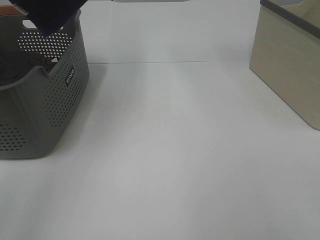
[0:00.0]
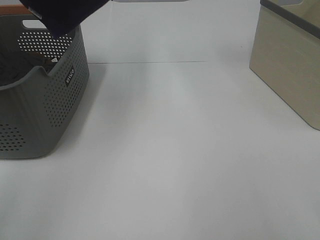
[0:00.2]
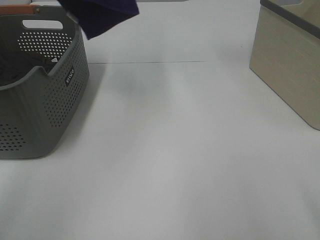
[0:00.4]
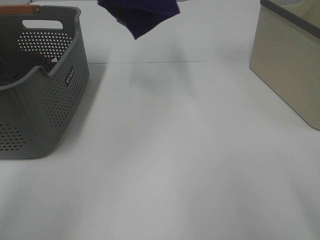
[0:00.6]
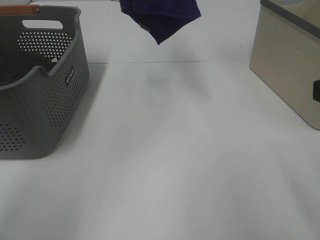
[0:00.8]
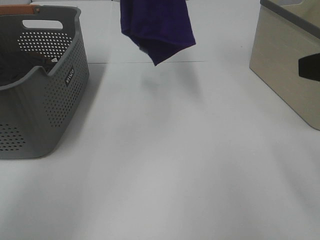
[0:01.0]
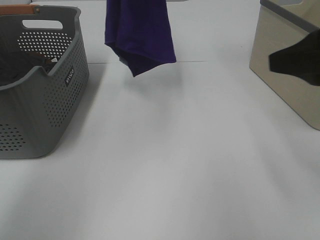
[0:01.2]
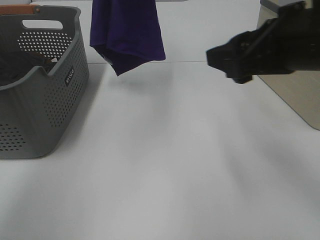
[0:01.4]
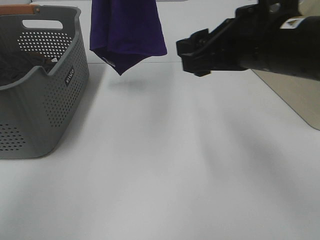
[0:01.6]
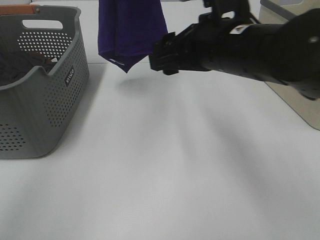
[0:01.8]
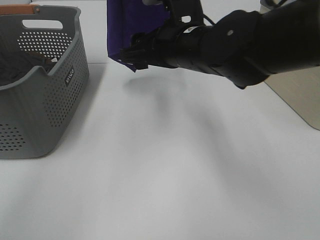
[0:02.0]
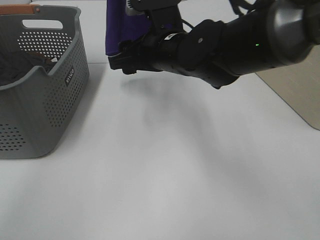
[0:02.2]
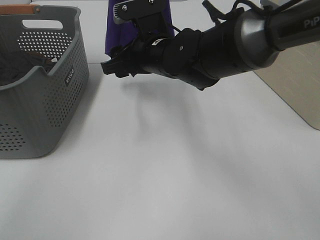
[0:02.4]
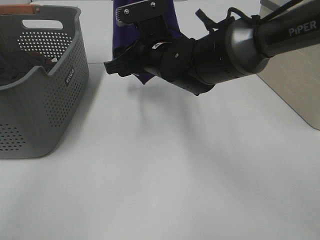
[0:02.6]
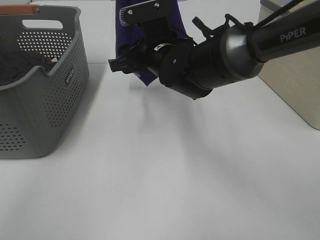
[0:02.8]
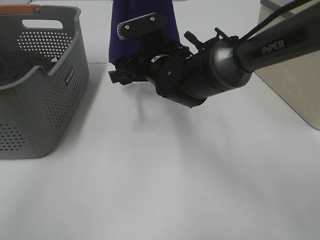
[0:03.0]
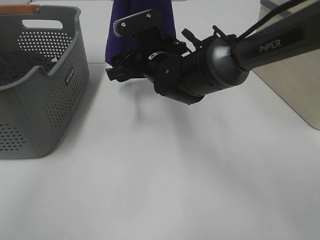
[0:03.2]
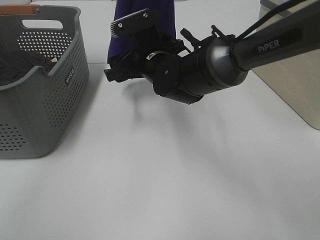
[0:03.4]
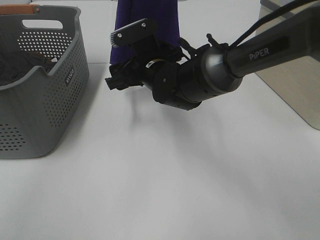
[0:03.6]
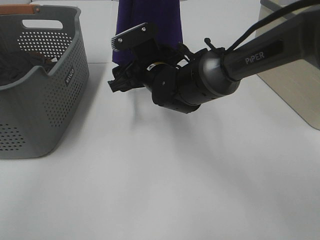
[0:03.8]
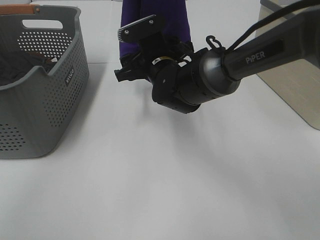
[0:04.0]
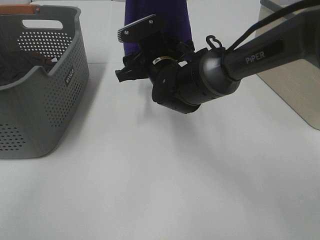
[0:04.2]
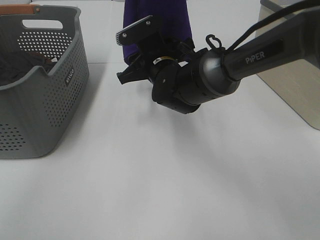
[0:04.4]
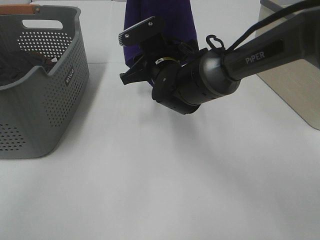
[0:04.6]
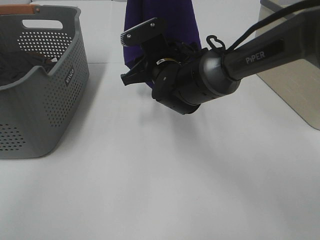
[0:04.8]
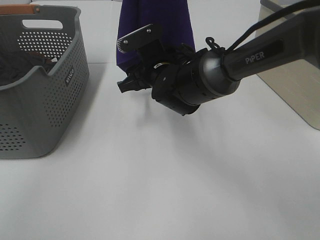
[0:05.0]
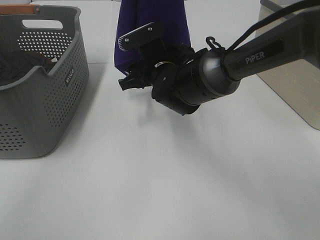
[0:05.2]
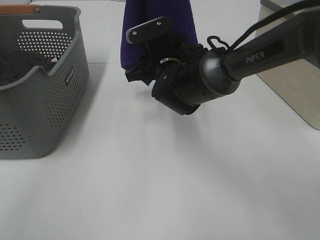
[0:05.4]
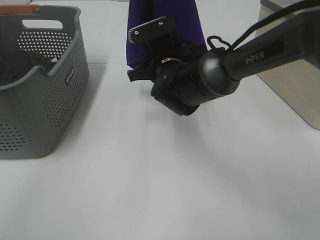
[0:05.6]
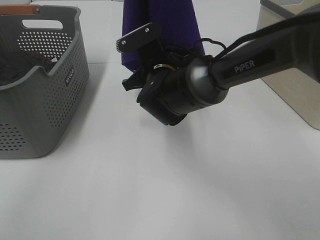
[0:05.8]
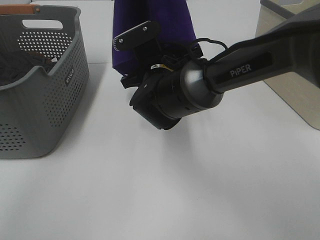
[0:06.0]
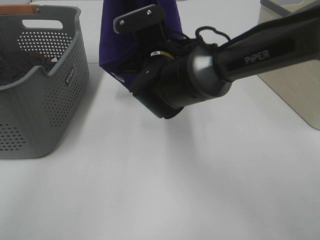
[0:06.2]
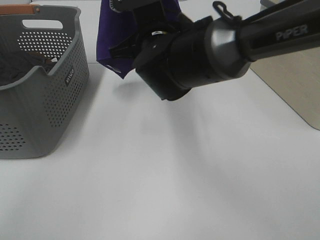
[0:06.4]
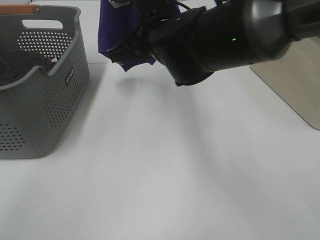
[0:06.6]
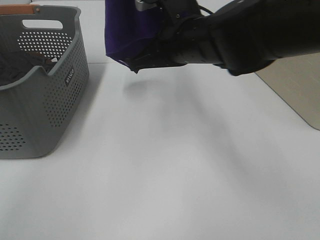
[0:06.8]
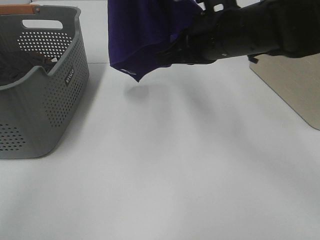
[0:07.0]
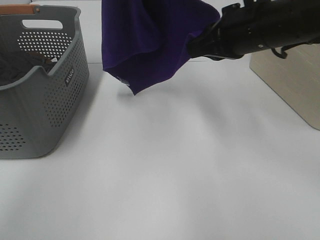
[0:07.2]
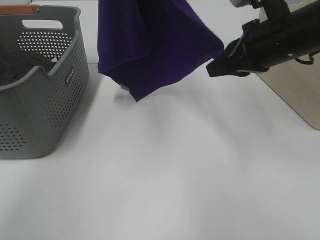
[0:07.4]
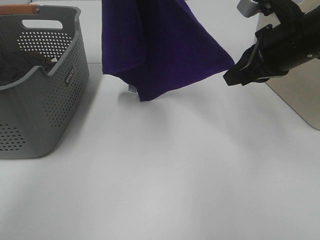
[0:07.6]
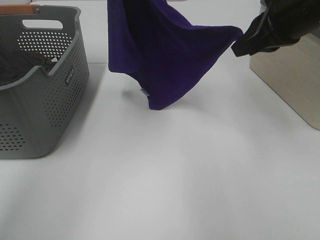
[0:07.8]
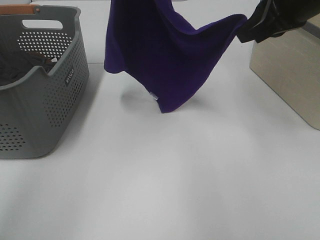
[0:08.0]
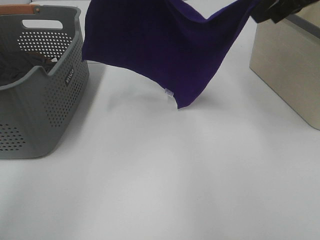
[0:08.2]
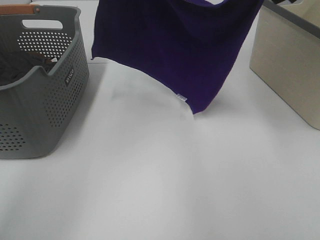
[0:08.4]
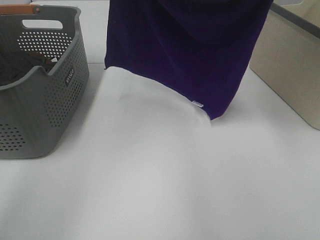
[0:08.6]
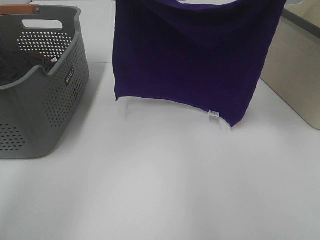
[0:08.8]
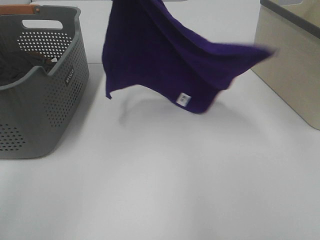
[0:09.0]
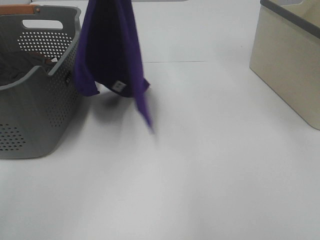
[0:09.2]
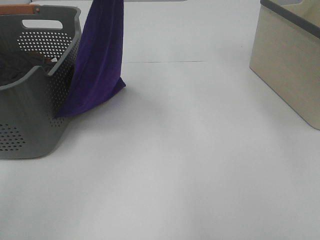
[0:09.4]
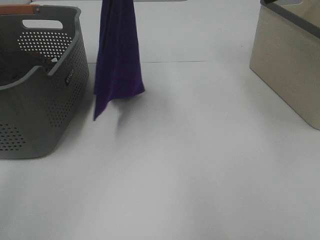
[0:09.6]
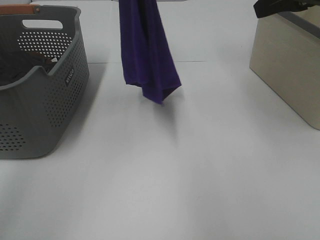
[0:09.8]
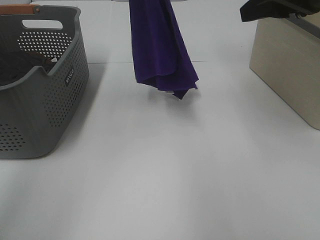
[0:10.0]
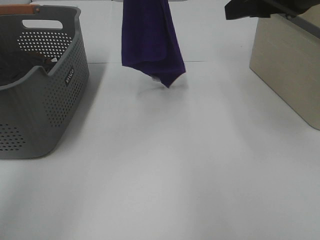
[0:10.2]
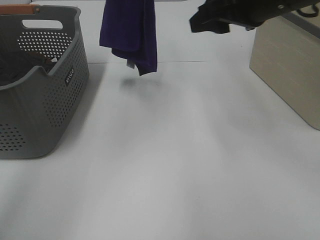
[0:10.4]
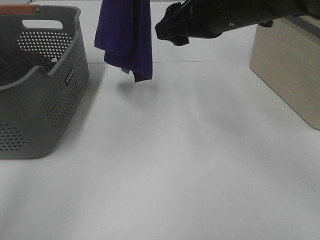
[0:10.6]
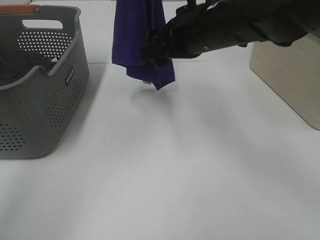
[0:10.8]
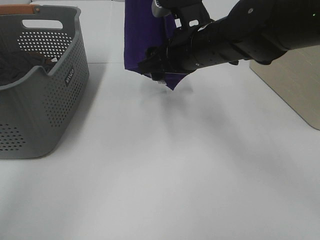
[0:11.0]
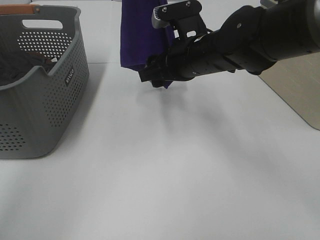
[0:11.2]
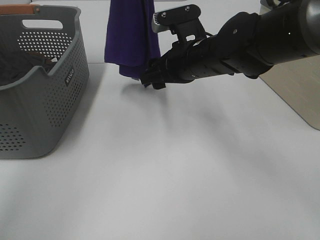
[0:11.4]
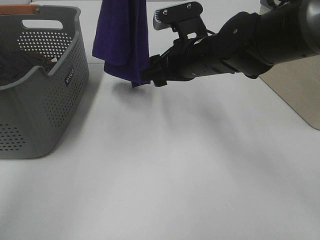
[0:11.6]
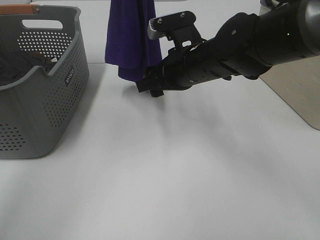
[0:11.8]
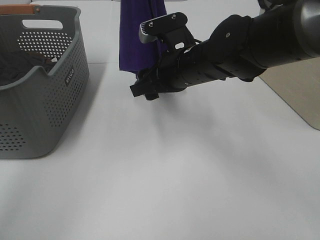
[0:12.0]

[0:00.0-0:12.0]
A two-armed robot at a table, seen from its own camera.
Task of the whole recording: Remove the towel and place it.
Step, 0:00.0 to 0:10.0: Right hand: grab a corner of the purple towel and straighten it.
0:00.0 to 0:01.6: The right gripper moves forward and to the left, about 30 cm. Meanwhile the left gripper is displaced to the right, downward and forward by approximately 20 cm.
0:01.6 to 0:03.0: The right gripper travels forward, downward and to the left by approximately 20 cm.
0:03.0 to 0:04.4: The right gripper closes up.
0:04.4 to 0:06.0: The right gripper closes.
0:06.0 to 0:07.6: The right gripper is displaced to the right and upward by about 20 cm.
0:07.6 to 0:09.0: The right gripper goes roughly 15 cm upward.
0:09.0 to 0:10.4: The left gripper shifts by some 5 cm, while the right gripper is displaced downward and to the left by some 15 cm, and opens.
0:10.4 to 0:12.0: The right gripper travels downward and to the left by about 15 cm.

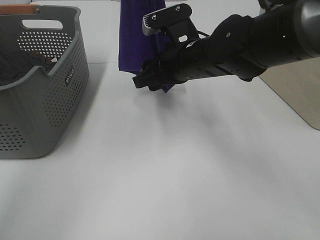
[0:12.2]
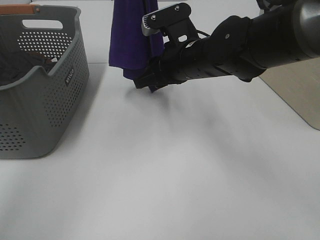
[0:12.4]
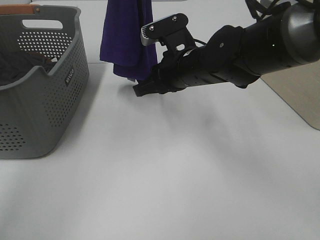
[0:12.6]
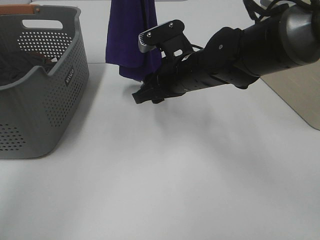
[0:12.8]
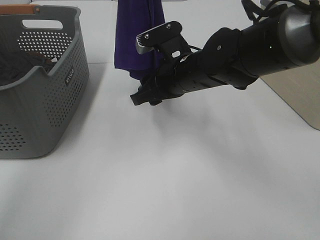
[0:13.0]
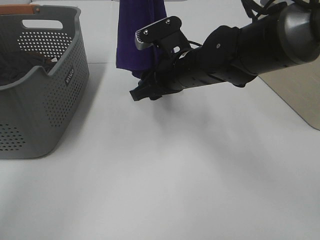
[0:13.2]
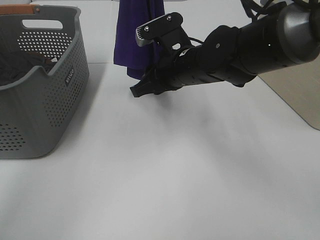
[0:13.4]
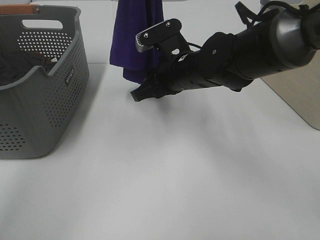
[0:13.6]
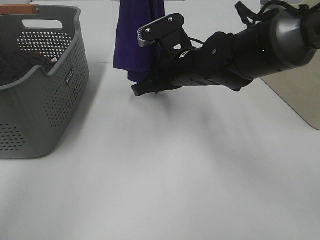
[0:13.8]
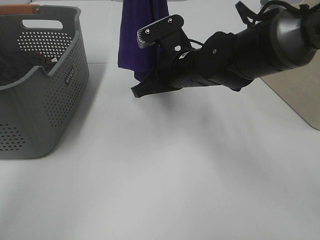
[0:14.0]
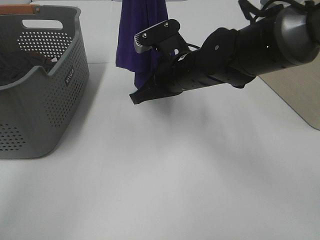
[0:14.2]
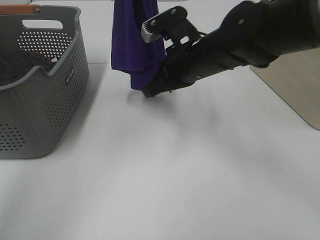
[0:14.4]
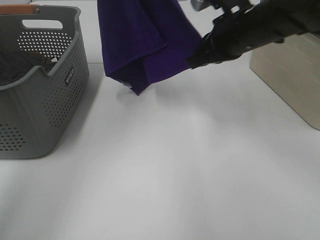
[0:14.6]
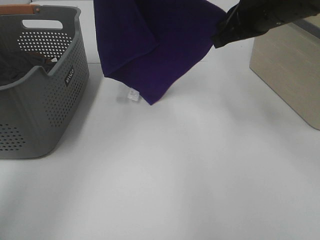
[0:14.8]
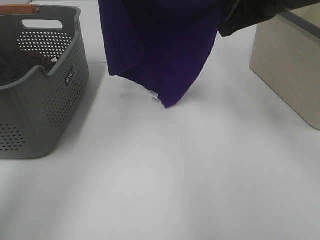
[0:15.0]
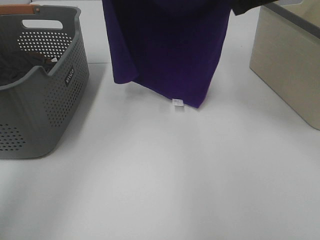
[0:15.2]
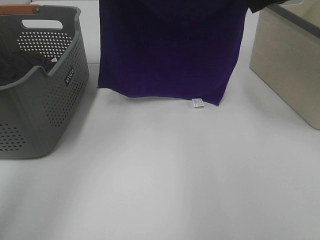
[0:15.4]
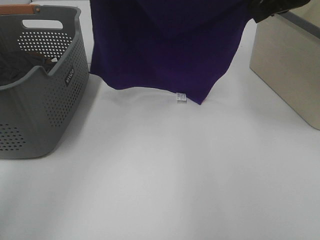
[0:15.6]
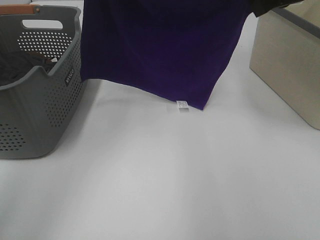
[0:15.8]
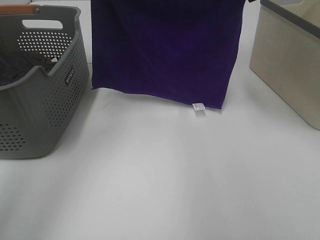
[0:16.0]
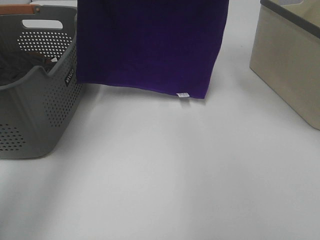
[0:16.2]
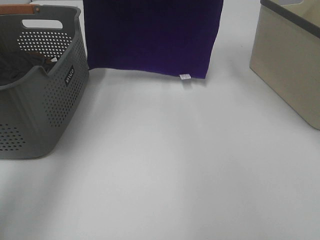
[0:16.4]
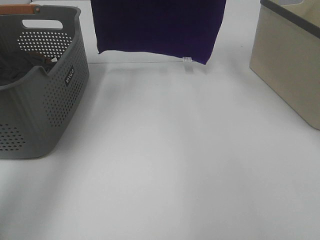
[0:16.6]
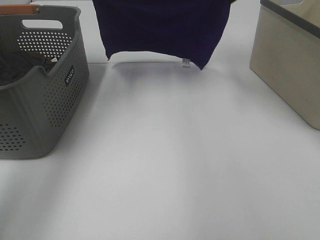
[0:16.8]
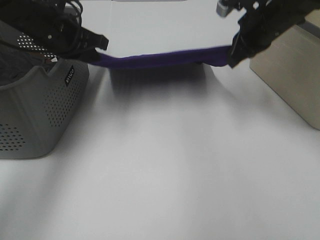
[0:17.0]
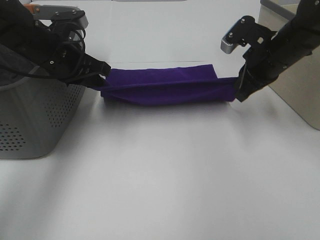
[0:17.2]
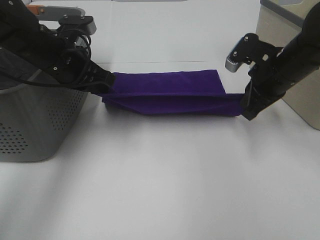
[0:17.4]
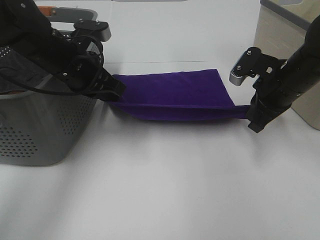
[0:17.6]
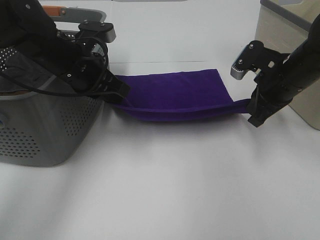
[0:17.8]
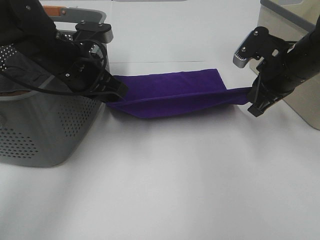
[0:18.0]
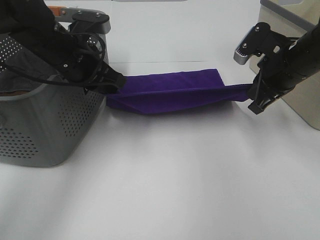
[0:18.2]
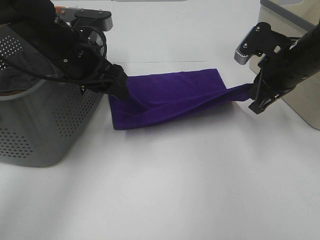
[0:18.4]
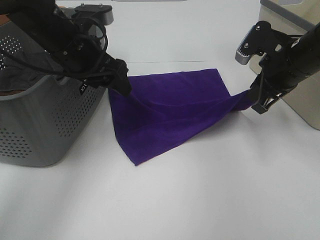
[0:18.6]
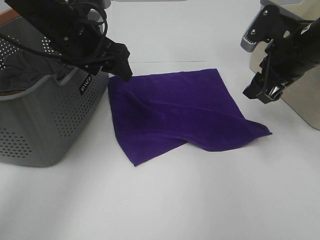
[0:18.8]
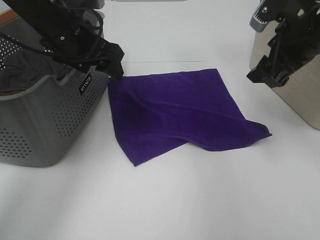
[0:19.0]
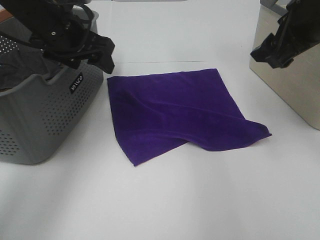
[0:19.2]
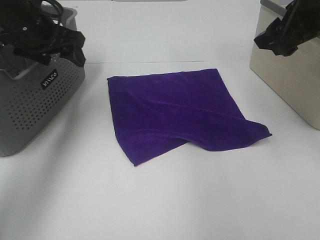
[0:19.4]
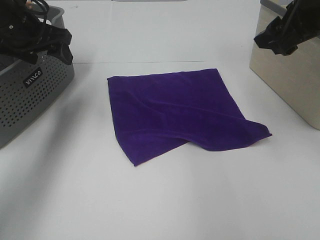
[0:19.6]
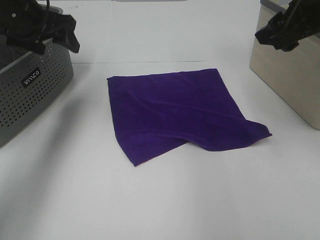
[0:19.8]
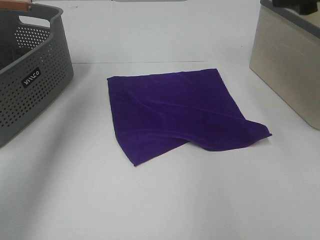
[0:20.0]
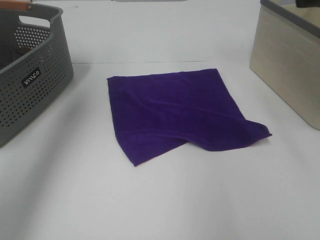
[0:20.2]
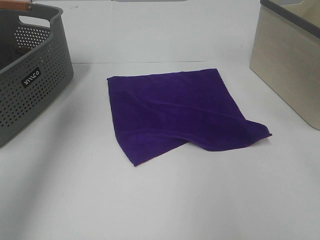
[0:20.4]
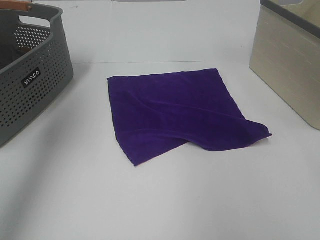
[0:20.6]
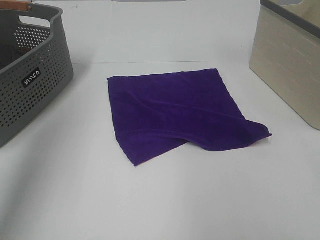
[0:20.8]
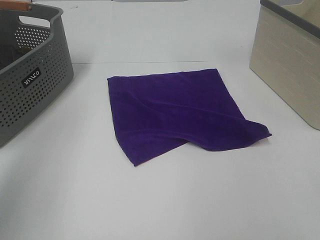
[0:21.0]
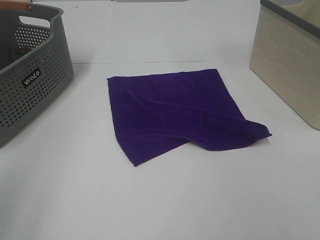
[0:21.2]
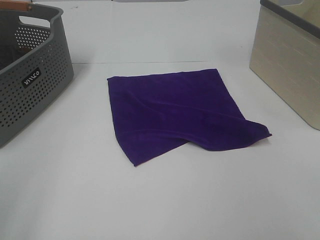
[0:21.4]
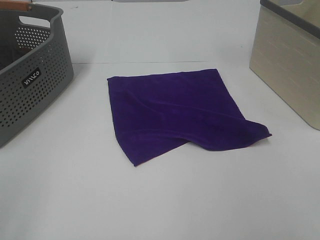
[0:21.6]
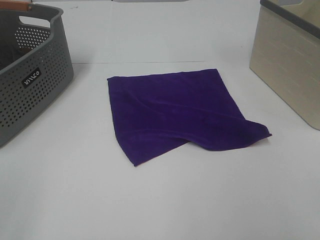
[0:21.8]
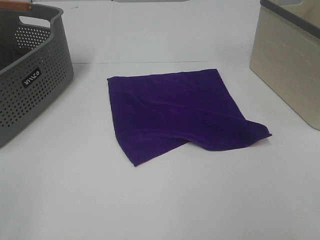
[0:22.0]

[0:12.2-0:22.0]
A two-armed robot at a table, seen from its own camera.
Task of the whole recording: Remove the towel and place it.
0:12.2 to 0:13.6: There are only small adjustments of the grippers.
0:13.6 to 0:15.0: The left gripper heads to the left, covering roughly 5 cm. Meanwhile the right gripper shifts roughly 20 cm upward and to the right, and closes its fingers.
0:15.0 to 0:16.4: The right gripper is displaced forward by about 10 cm. The left gripper travels downward by roughly 5 cm.
0:16.4 to 0:17.8: The grippers both shift downward and backward by approximately 20 cm.
0:17.8 to 0:19.2: The right gripper goes approximately 10 cm upward, and opens, while the left gripper is displaced upward by some 5 cm, and opens its fingers.
0:19.2 to 0:20.6: The right gripper heads backward and upward, covering some 20 cm. The left gripper shifts approximately 25 cm upward, to the left and backward.
0:20.6 to 0:22.0: The left gripper heads backward and downward, covering roughly 30 cm.
